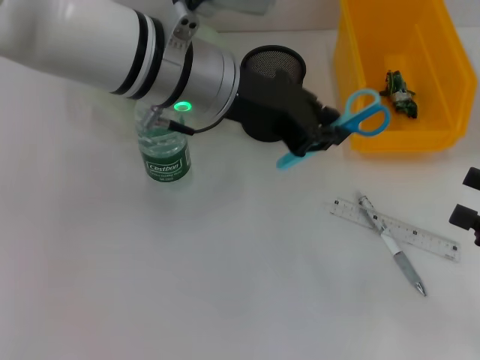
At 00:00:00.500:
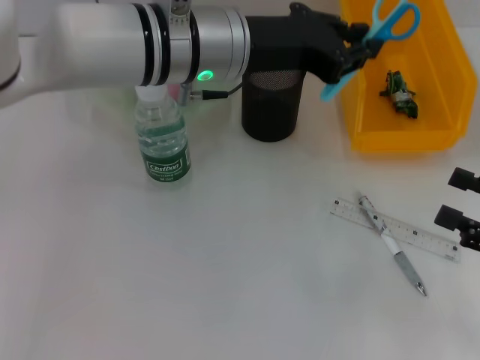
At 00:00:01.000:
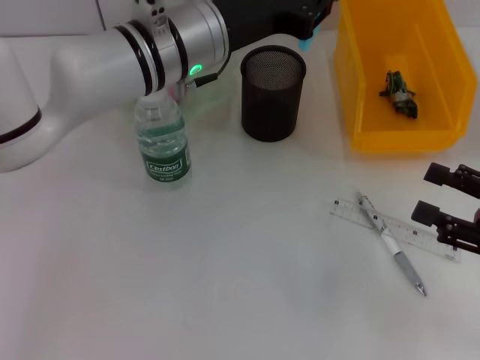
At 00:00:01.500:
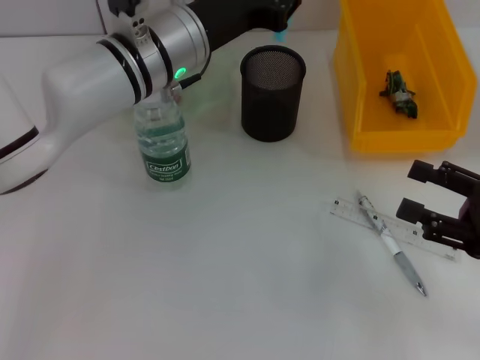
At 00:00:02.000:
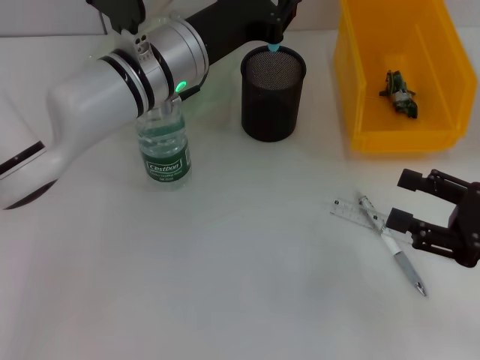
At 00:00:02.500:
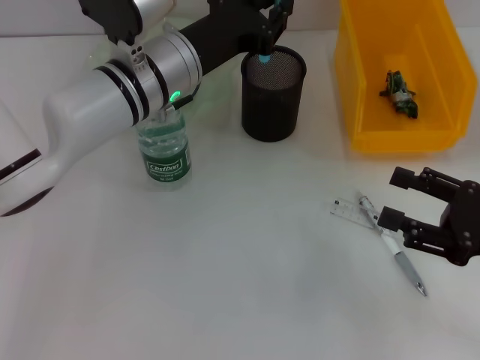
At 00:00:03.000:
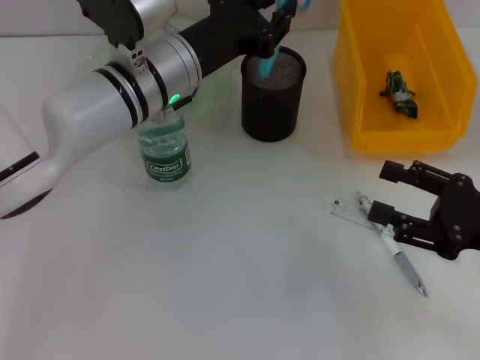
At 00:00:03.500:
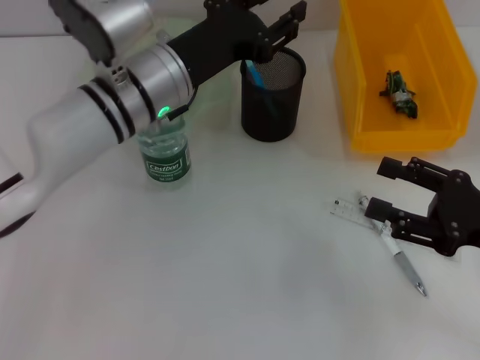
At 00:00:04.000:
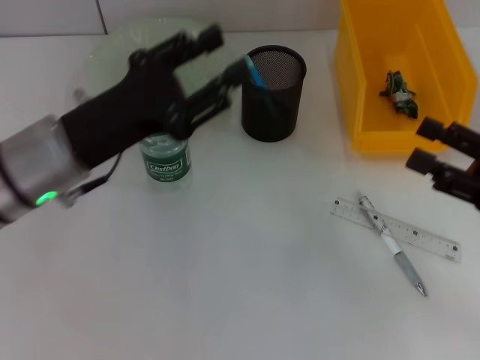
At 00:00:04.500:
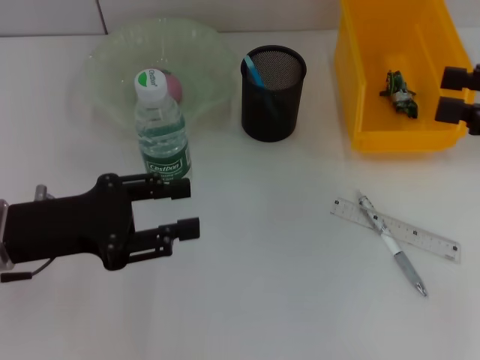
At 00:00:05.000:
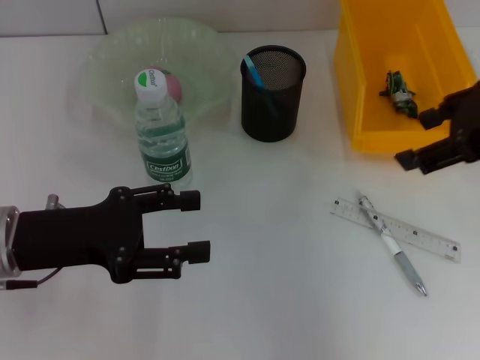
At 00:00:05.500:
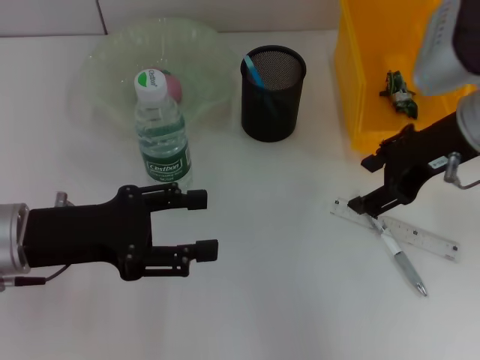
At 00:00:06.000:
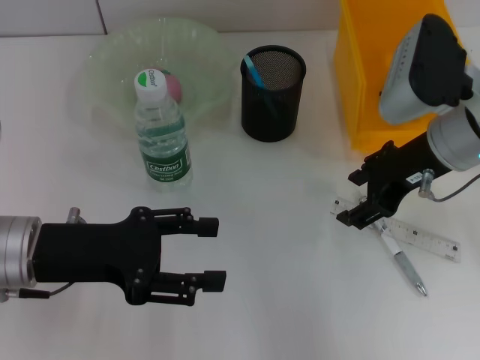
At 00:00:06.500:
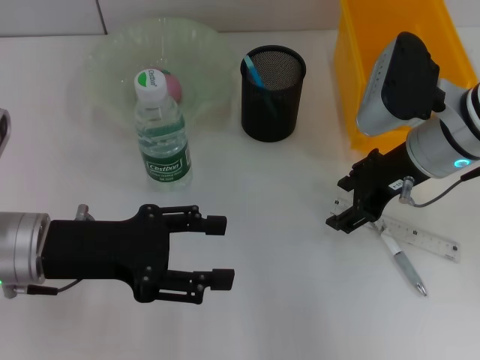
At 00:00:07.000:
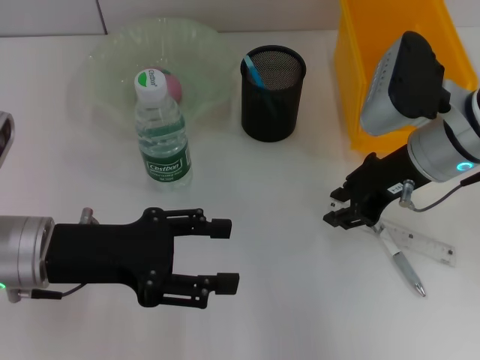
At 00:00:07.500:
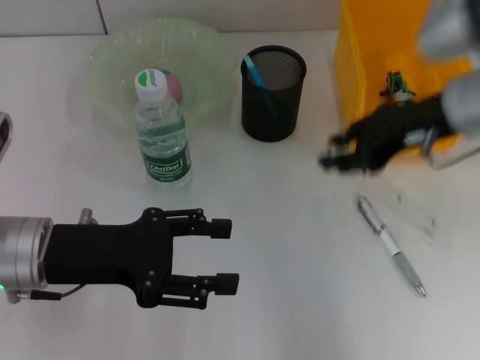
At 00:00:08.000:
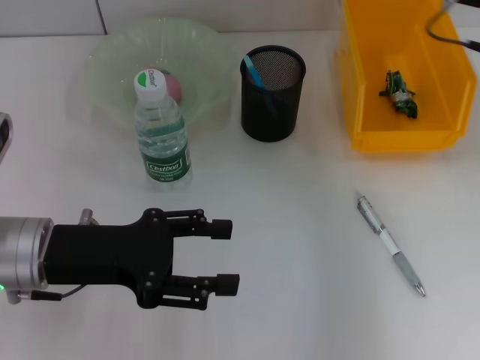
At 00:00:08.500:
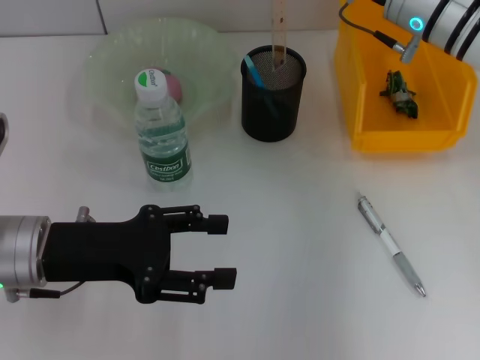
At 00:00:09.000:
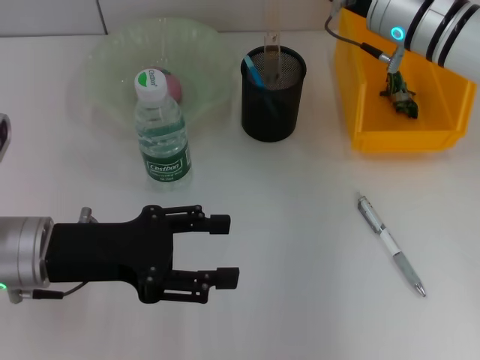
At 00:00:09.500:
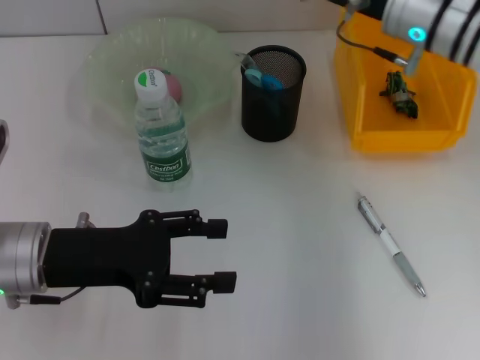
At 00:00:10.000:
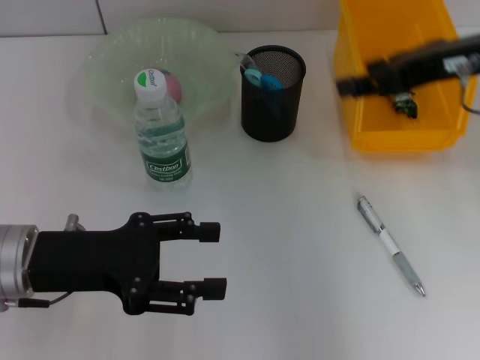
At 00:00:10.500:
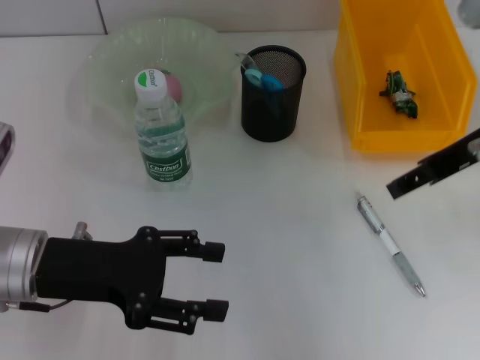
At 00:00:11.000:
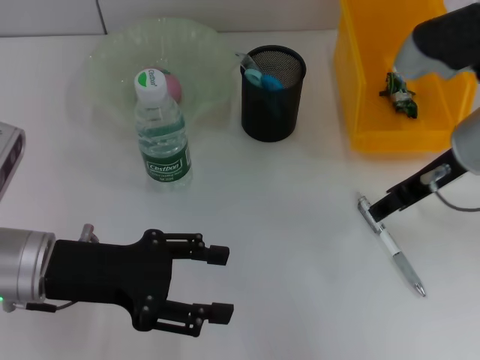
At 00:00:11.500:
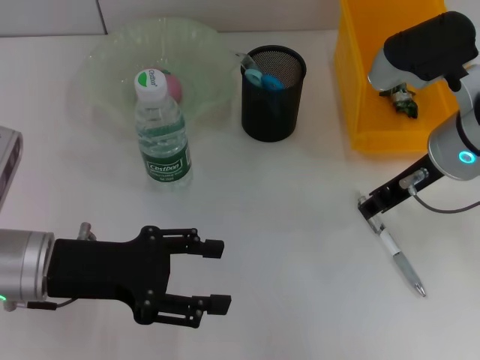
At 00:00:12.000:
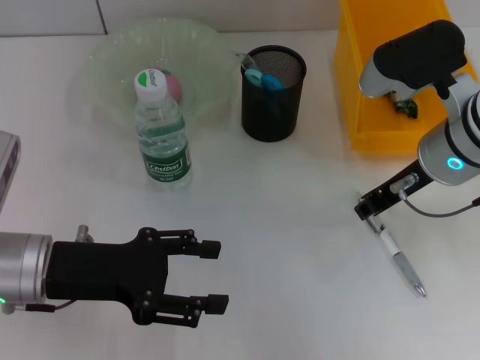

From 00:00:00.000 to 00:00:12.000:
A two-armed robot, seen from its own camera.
Step, from 00:00:00.000 to 00:00:03.000: Place the blue scissors into the pen holder with the left hand.
Step, from 00:00:03.500 to 00:00:07.000: Grab the ruler with the right hand.
Step, from 00:00:07.500 to 00:00:09.000: Place the ruler into the pen holder with the right hand.
From 00:00:00.000 to 00:00:02.000: The right gripper ends up about 5 cm from where it was. Meanwhile the left gripper heads downward, covering roughly 5 cm.
From 00:00:02.000 to 00:00:04.000: The left gripper goes about 15 cm to the left and backward, and opens.
From 00:00:04.000 to 00:00:06.000: The left gripper moves some 5 cm; the right gripper travels to the left, forward and upward by about 20 cm.
From 00:00:06.000 to 00:00:08.000: The right gripper travels upward by roughly 5 cm, and closes its fingers.
From 00:00:10.000 to 00:00:12.000: The right gripper travels downward and to the left by about 10 cm, and closes.

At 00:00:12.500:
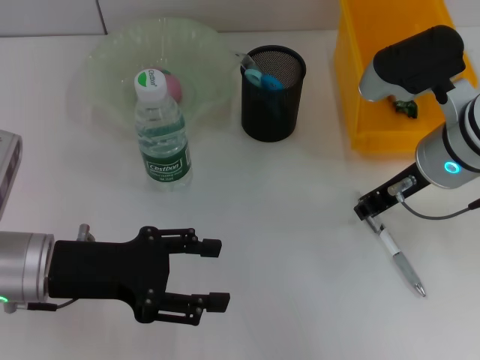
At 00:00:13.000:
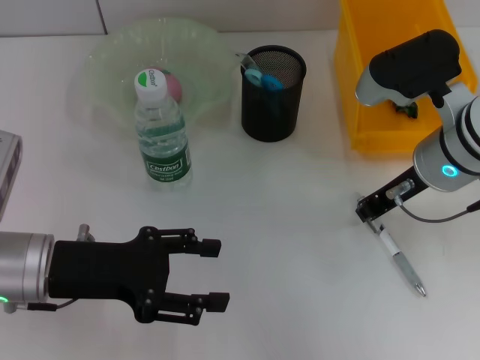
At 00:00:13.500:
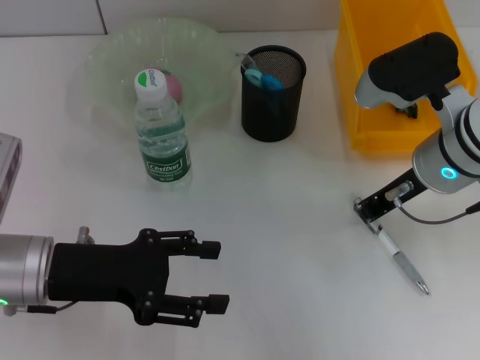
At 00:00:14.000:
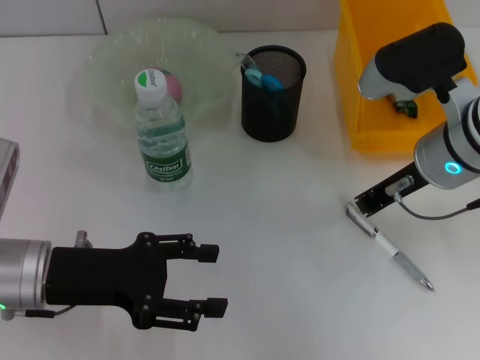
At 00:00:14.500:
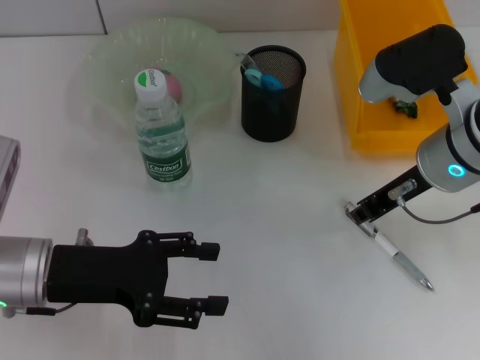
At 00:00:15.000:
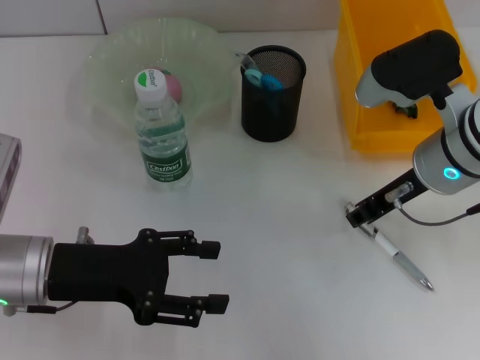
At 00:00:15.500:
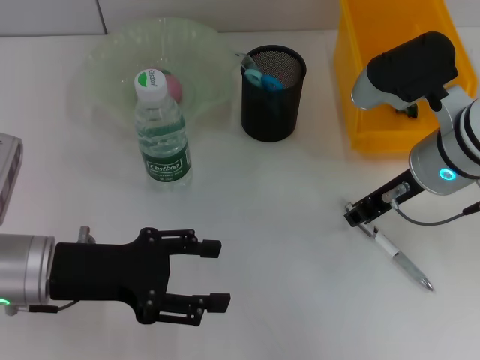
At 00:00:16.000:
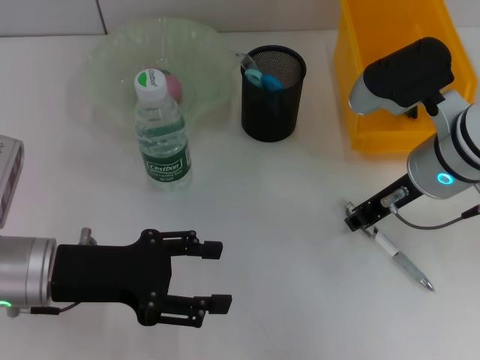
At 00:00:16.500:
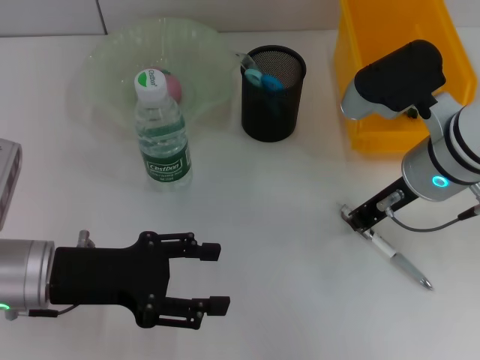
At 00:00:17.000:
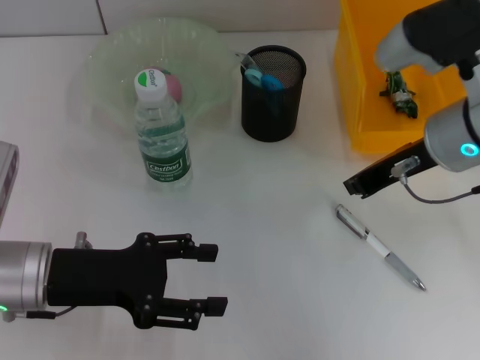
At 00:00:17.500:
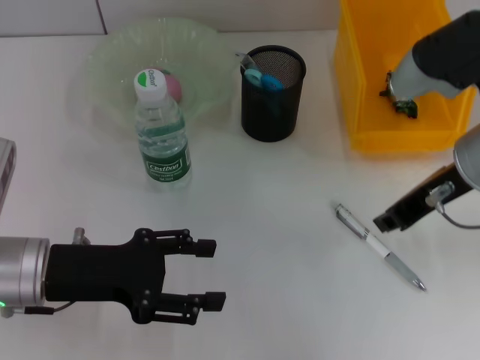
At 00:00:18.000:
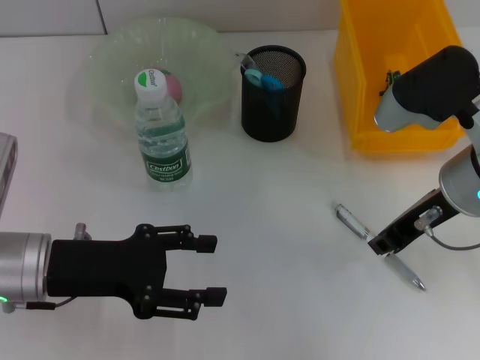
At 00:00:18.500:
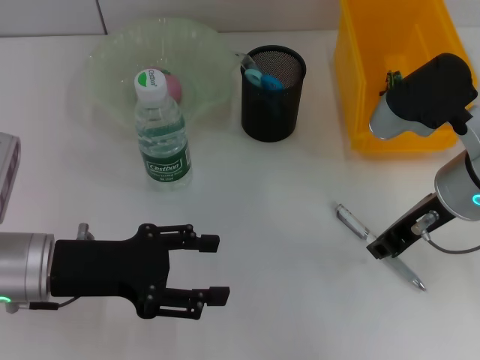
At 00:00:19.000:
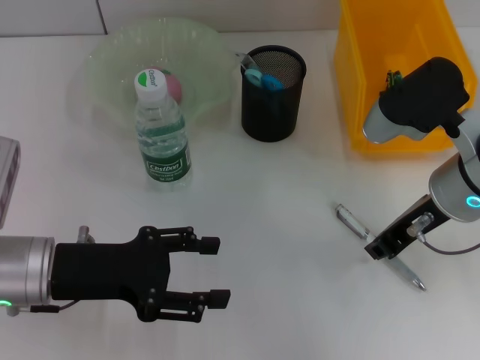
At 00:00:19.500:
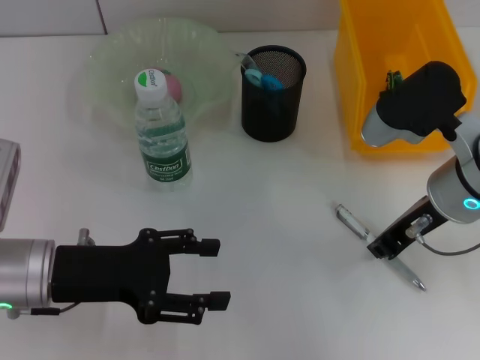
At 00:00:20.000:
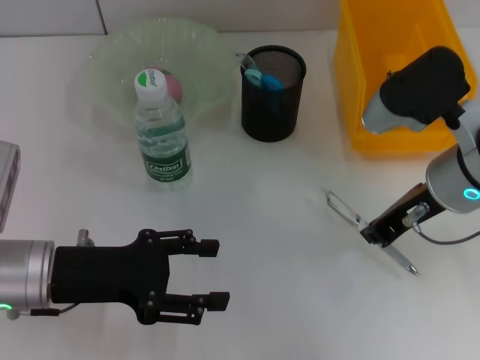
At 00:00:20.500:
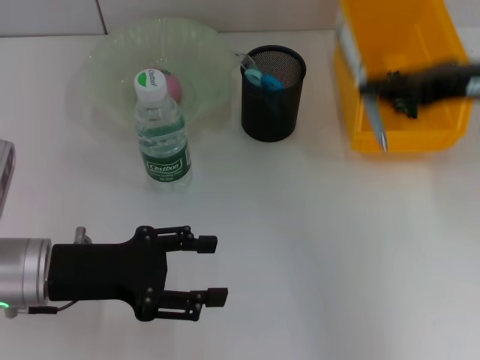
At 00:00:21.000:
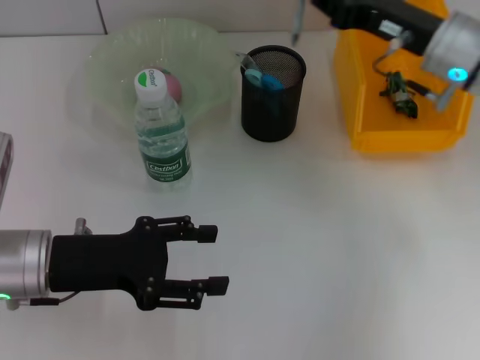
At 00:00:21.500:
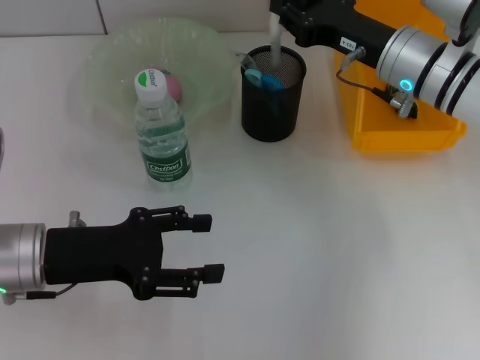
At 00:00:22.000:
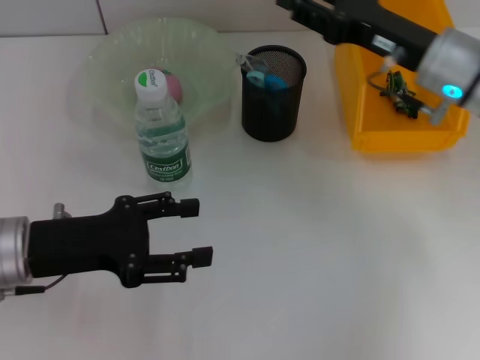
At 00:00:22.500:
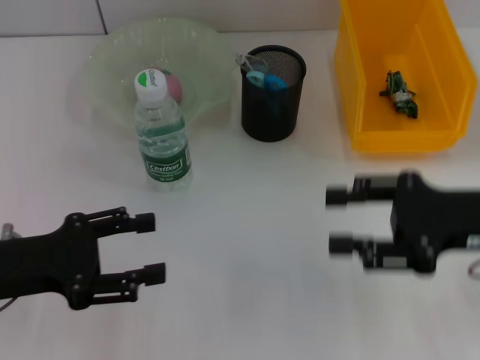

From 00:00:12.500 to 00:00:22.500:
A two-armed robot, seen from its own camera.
Step, from 00:00:12.500 to 00:00:19.500: Grab the gray spring-action pen with the right hand.
Step, from 00:00:20.000 to 00:00:21.500: Place the gray spring-action pen into the pen holder with the right hand.
From 00:00:12.500 to 00:00:14.500: Both grippers stay put.
From 00:00:14.500 to 00:00:18.500: The grippers stay close to where they were, moving slightly.
From 00:00:18.500 to 00:00:20.500: The right gripper moves upward and to the right, approximately 10 cm.
From 00:00:20.500 to 00:00:22.500: The left gripper moves to the left, about 5 cm, while the right gripper is displaced downward and backward by roughly 10 cm, and opens its fingers.
